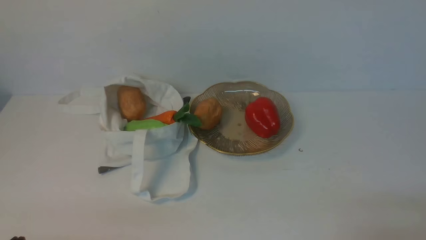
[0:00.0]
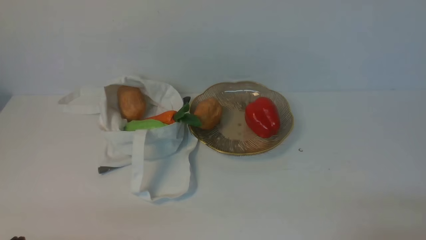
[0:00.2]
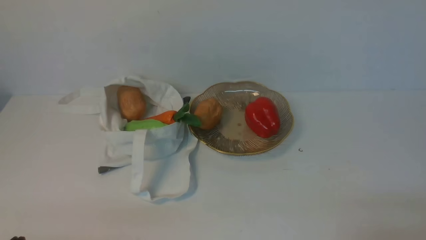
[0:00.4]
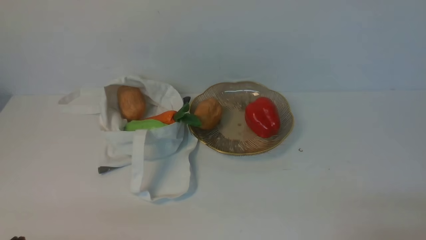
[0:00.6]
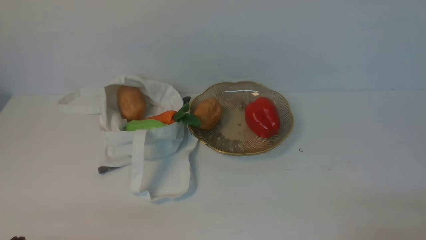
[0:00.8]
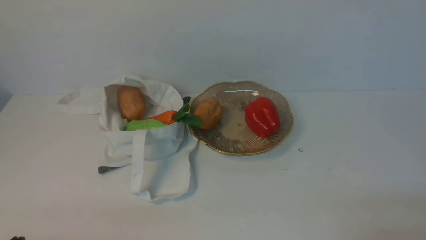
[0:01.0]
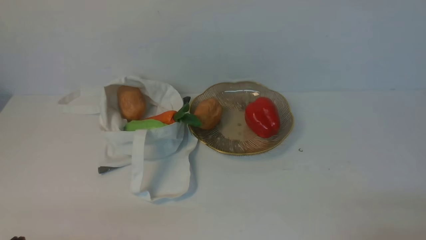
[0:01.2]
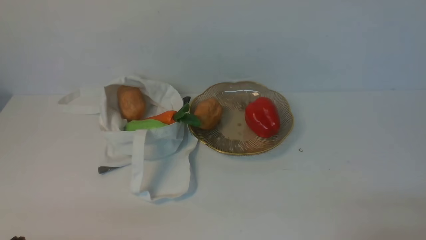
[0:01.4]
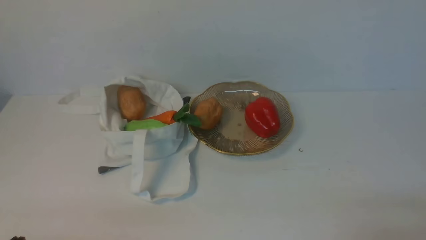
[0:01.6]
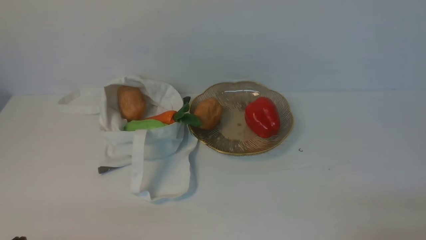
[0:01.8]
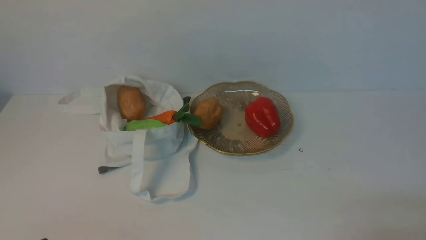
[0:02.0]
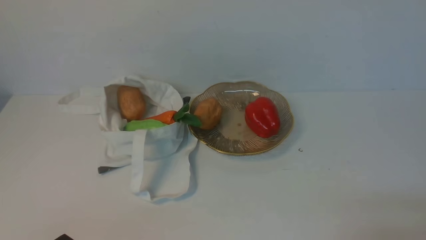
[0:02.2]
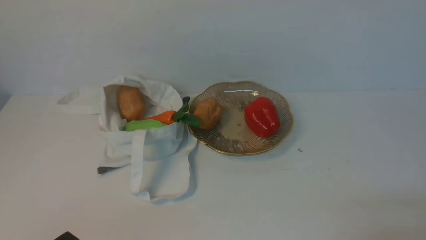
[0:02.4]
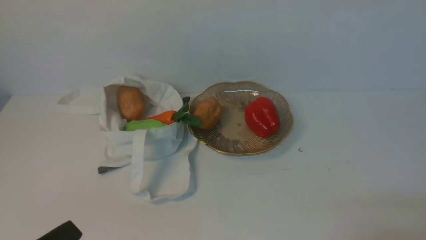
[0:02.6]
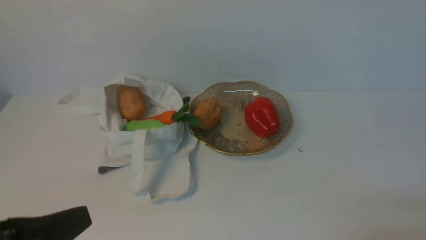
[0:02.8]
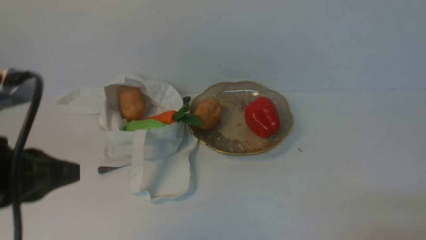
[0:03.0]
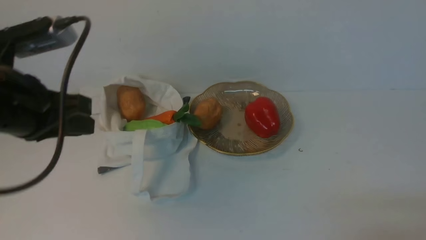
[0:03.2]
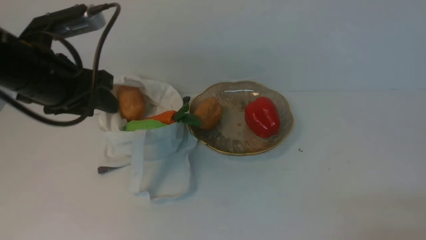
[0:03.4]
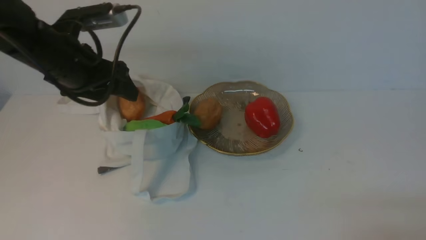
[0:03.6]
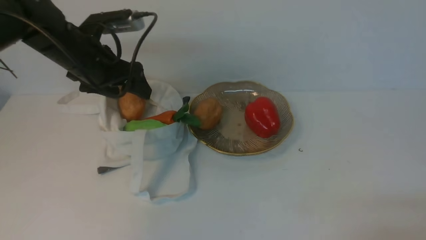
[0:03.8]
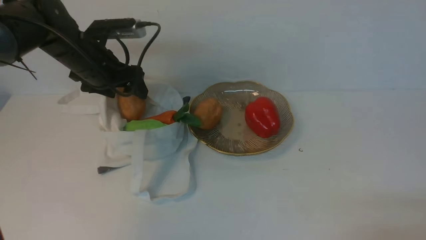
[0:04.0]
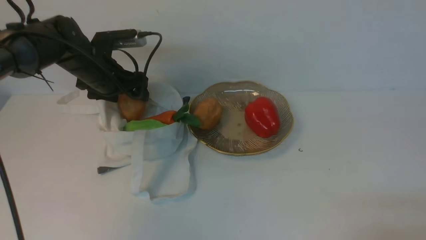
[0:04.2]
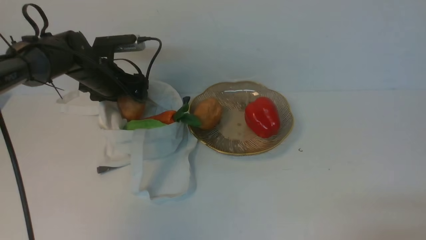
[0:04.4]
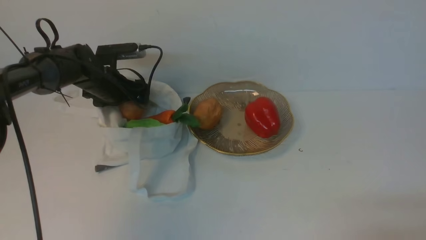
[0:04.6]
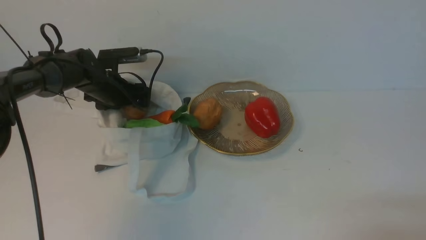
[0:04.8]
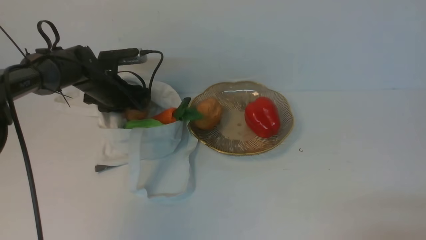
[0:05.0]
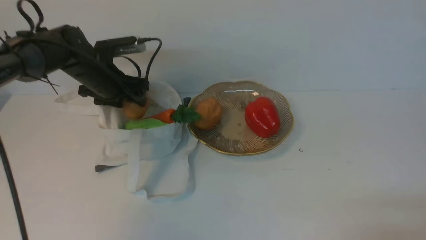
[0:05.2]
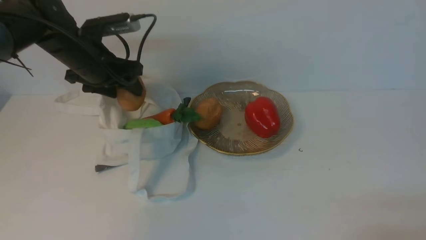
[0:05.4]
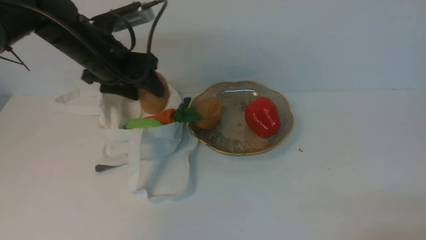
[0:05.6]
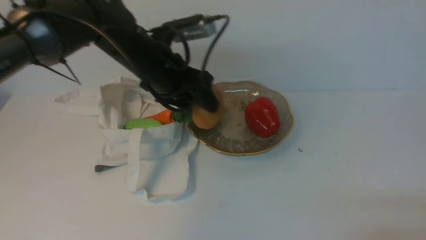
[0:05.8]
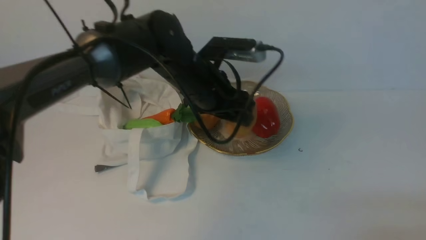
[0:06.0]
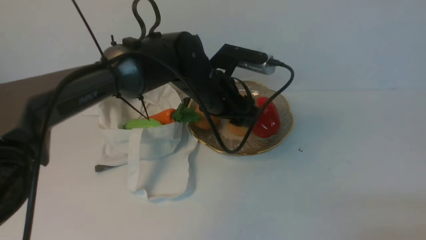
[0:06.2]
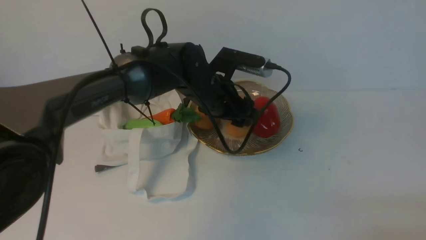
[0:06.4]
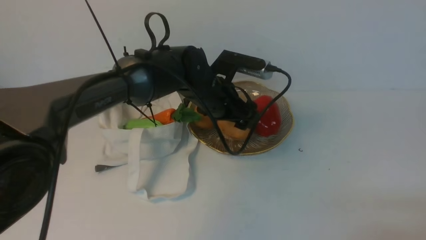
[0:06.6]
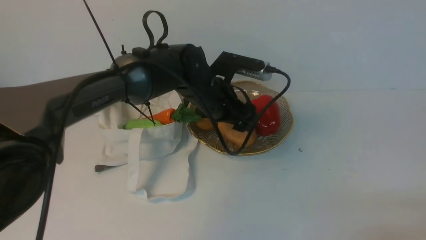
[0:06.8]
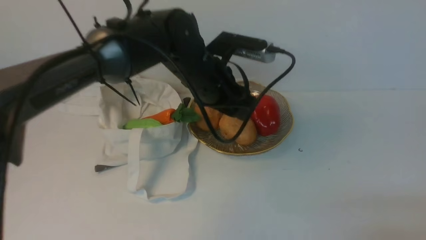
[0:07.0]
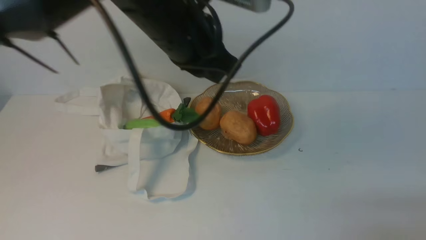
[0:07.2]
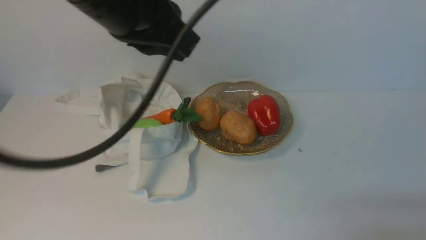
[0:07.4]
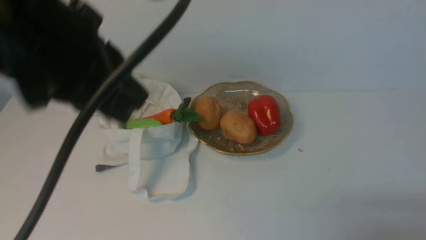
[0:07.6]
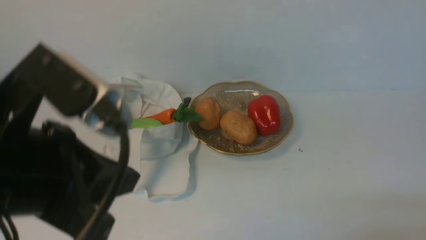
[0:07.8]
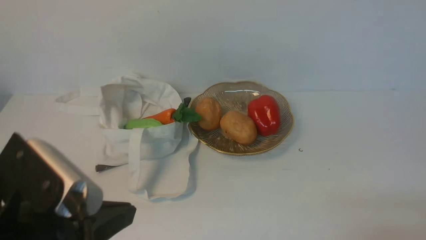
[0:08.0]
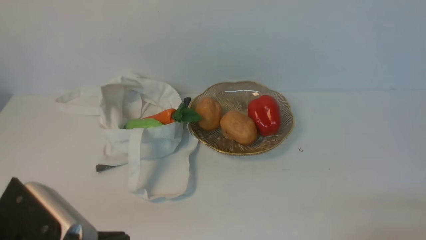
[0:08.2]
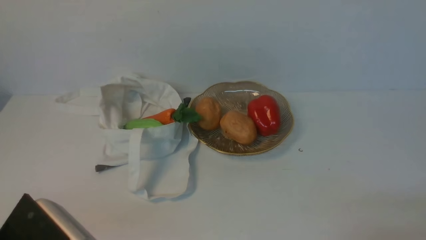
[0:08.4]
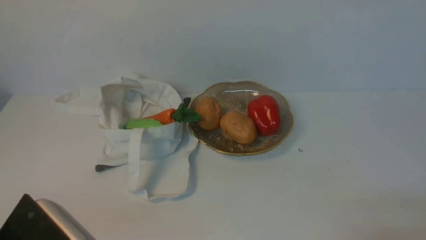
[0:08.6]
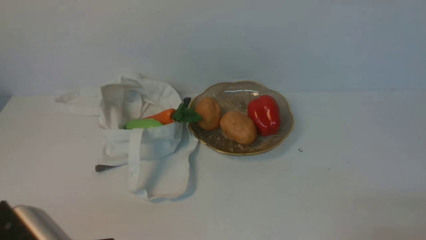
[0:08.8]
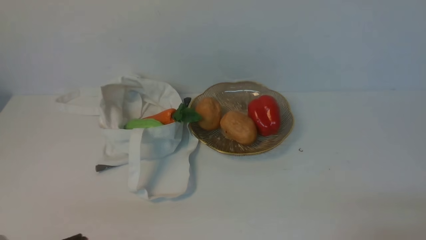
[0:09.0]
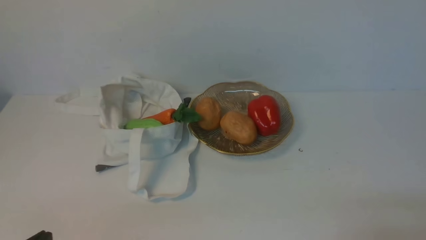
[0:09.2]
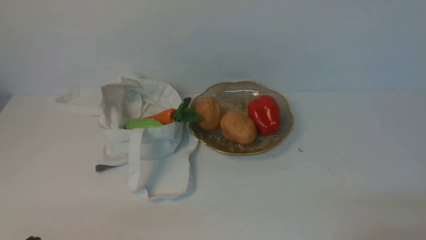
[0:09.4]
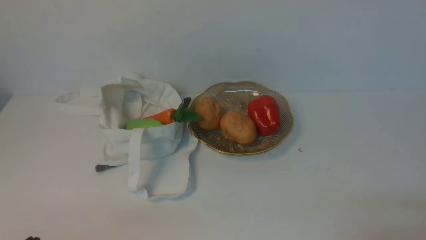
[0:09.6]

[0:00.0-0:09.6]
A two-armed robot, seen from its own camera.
Task of the whole recording: take vegetables from cloth bag on white table place on plate.
Step, 0:00.0 to 0:05.0: Grasp the potato with left gripper.
Step, 0:05.2 to 0:07.0: Place the potato on the plate with left gripper.
0:00.0 to 0:01.6: Both grippers stay about where they are.
0:01.6 to 0:03.2: The left gripper is displaced forward and upward by about 25 cm.
0:03.2 to 0:04.8: The left gripper goes about 30 cm forward and downward, and opens.
0:04.8 to 0:06.4: The left gripper moves to the right and backward, roughly 25 cm.
0:06.4 to 0:08.0: The left gripper goes approximately 35 cm backward and to the left, and closes its fingers.
0:08.0 to 0:09.6: The left gripper is displaced downward, to the left and backward by about 15 cm.

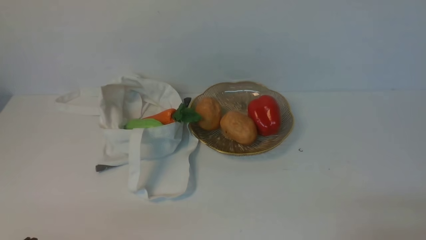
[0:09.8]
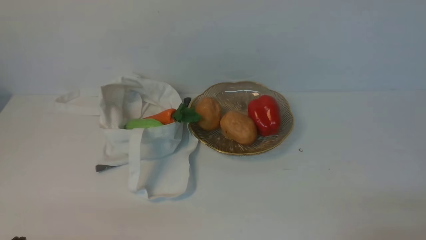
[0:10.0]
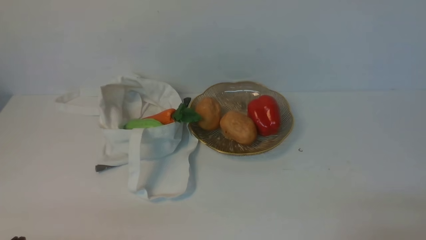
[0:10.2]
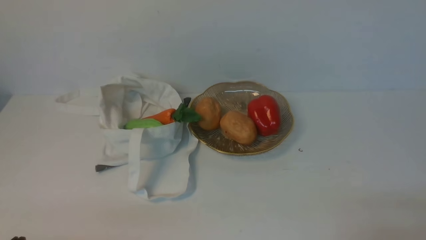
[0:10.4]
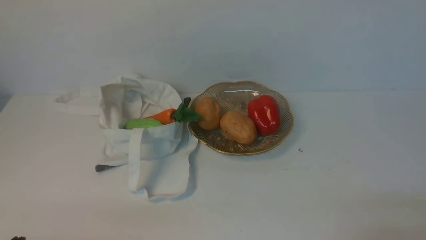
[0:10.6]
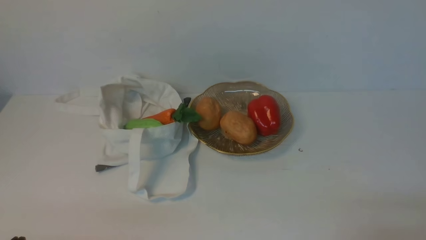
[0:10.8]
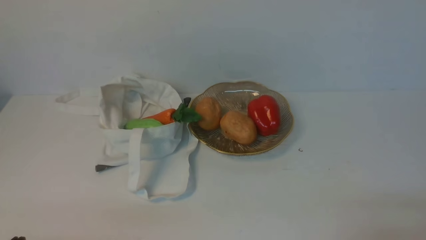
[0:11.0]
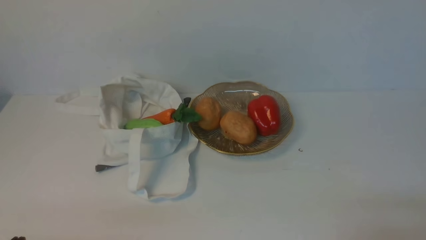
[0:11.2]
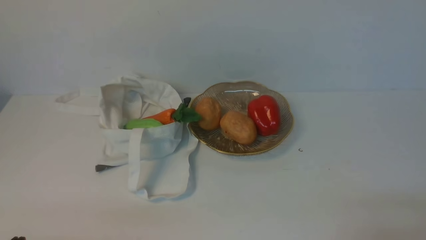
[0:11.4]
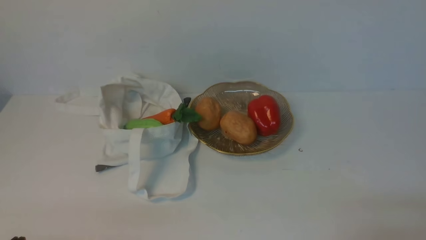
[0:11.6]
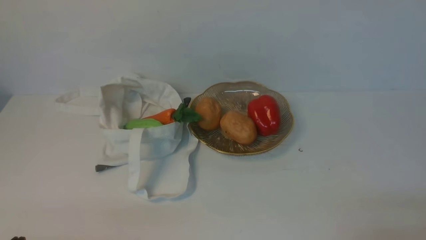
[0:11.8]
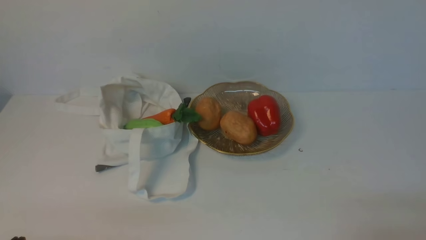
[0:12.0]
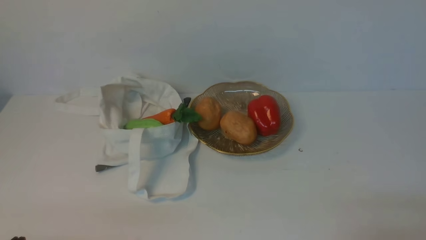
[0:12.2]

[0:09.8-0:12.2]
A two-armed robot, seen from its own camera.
Task of the whole recording: take vegetables from cloth bag on white table place on plate.
0:09.8 to 0:12.2: Both grippers stay put.
